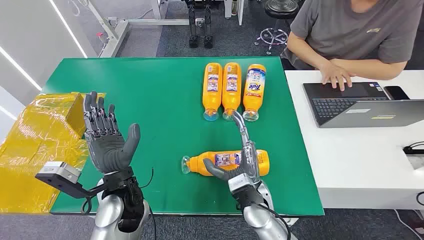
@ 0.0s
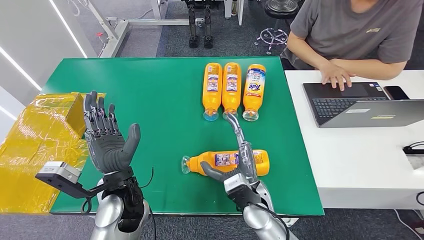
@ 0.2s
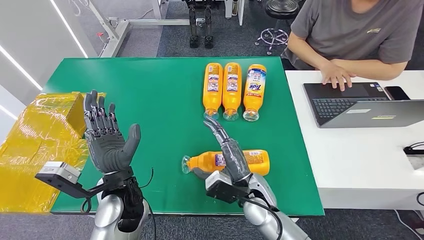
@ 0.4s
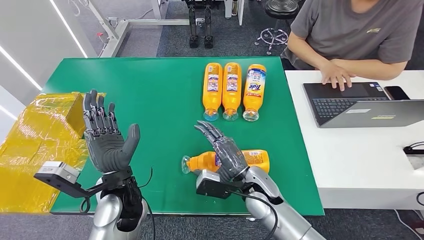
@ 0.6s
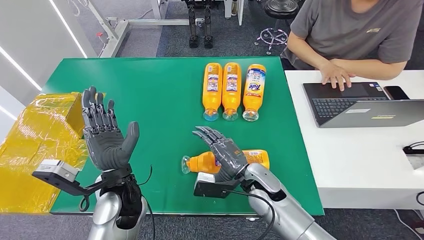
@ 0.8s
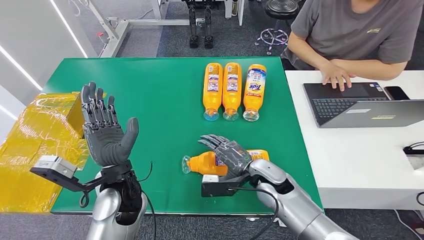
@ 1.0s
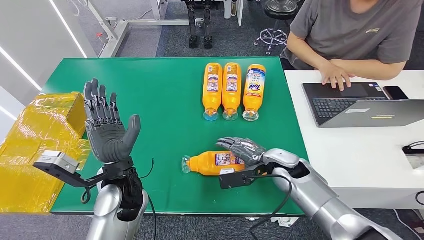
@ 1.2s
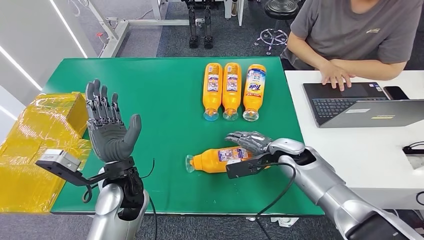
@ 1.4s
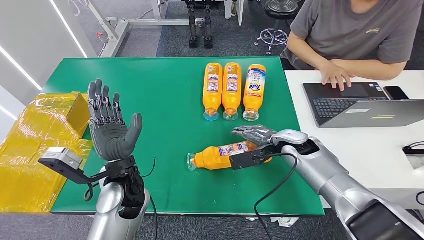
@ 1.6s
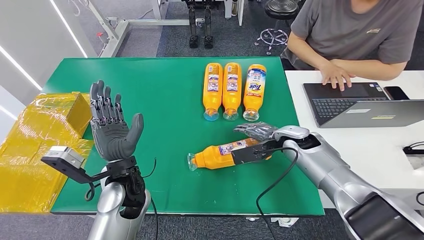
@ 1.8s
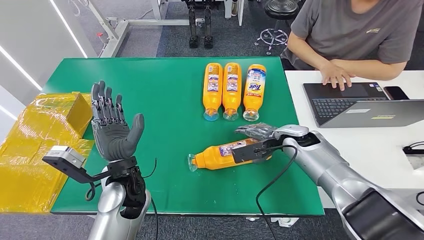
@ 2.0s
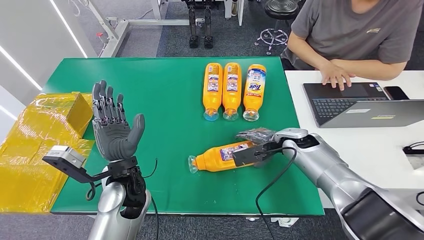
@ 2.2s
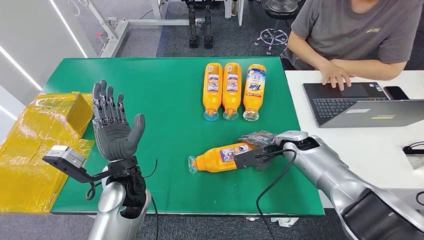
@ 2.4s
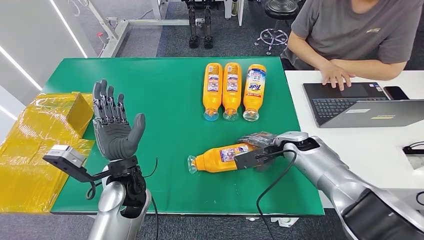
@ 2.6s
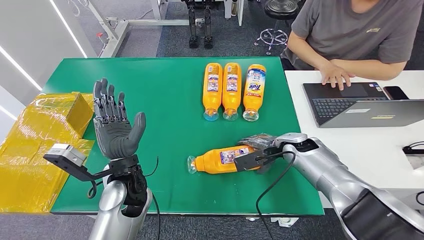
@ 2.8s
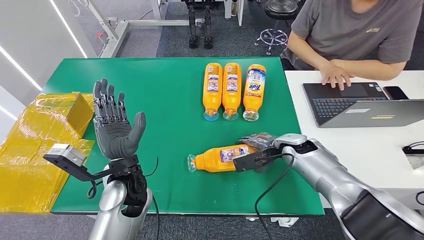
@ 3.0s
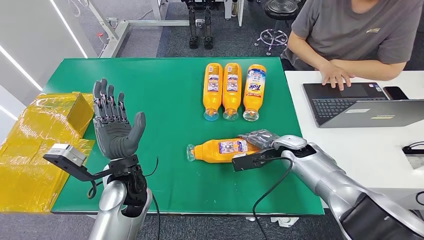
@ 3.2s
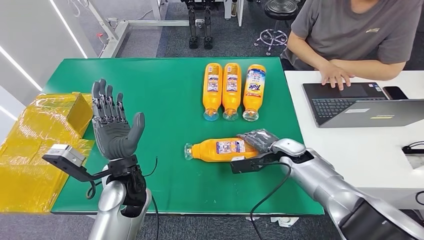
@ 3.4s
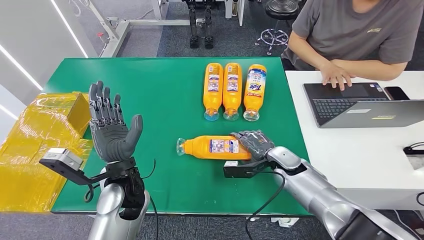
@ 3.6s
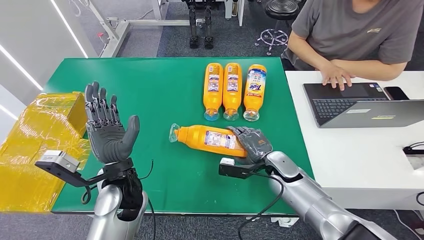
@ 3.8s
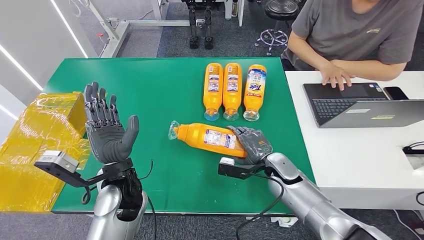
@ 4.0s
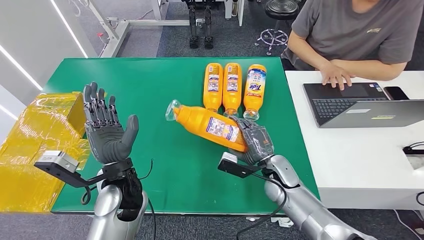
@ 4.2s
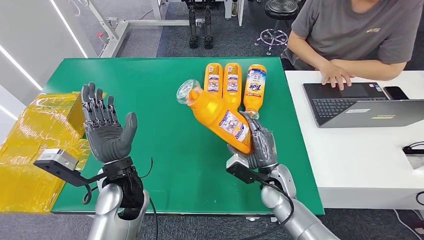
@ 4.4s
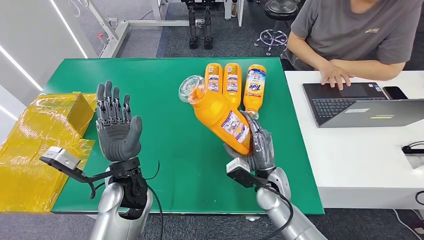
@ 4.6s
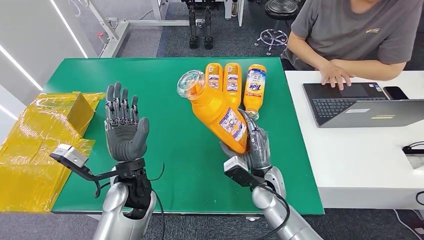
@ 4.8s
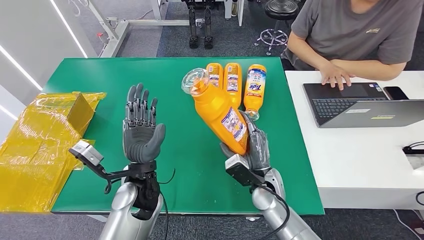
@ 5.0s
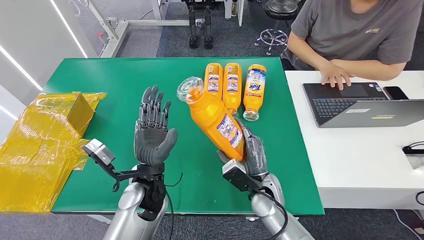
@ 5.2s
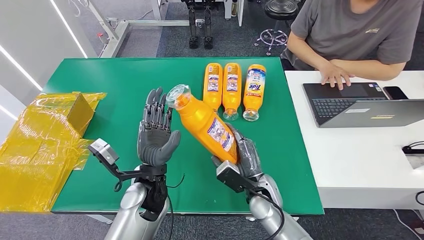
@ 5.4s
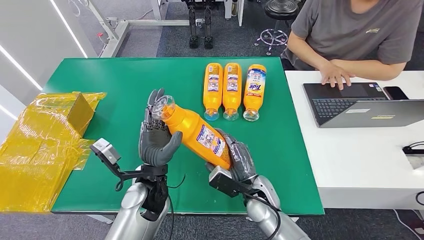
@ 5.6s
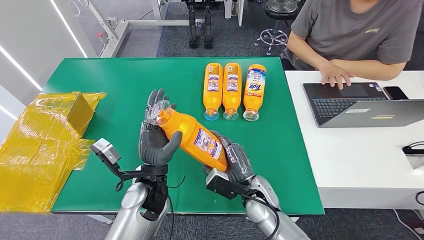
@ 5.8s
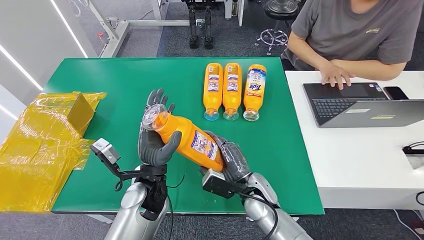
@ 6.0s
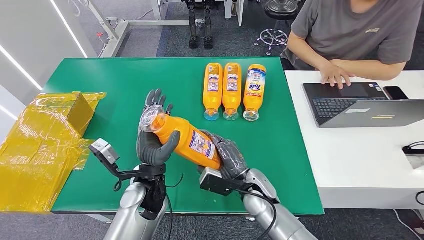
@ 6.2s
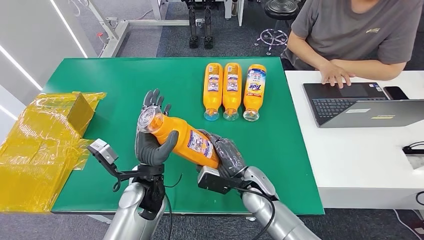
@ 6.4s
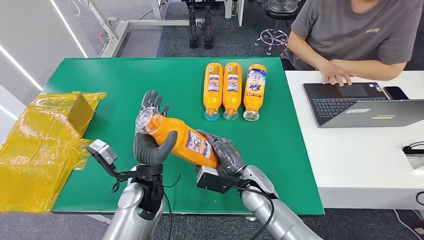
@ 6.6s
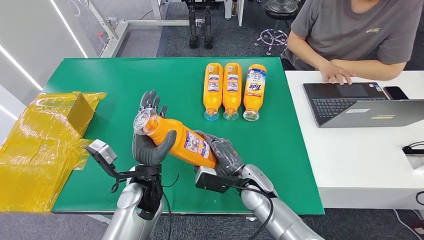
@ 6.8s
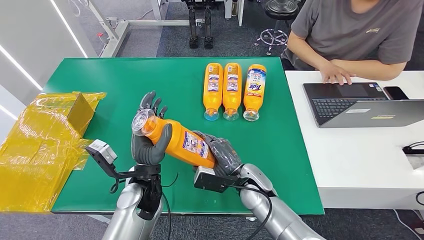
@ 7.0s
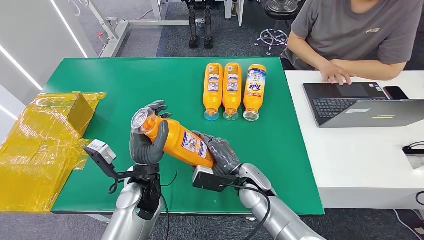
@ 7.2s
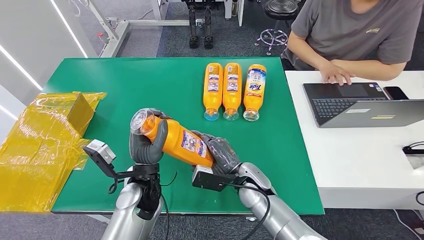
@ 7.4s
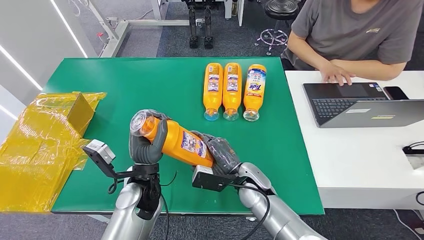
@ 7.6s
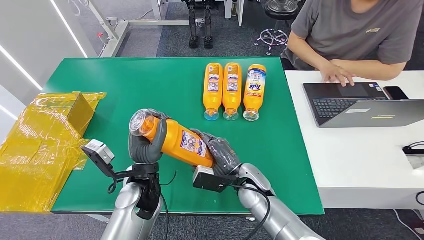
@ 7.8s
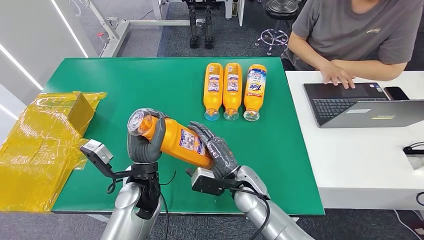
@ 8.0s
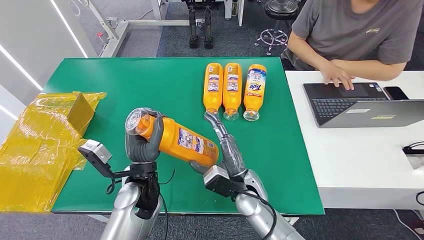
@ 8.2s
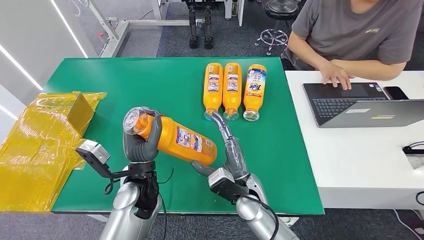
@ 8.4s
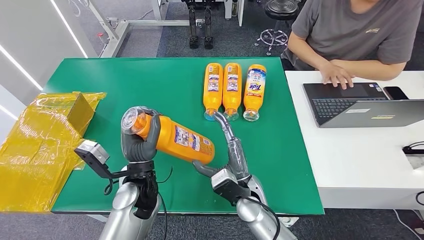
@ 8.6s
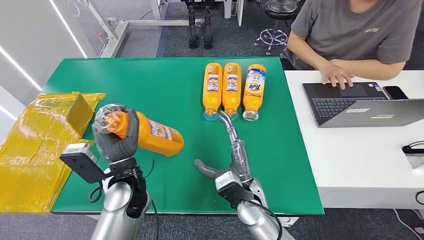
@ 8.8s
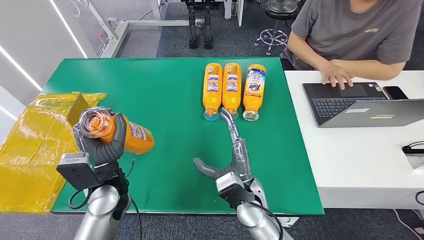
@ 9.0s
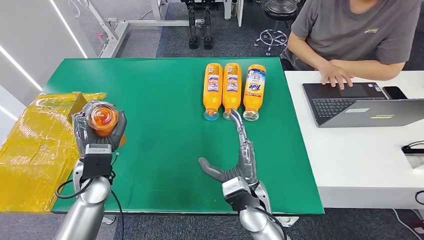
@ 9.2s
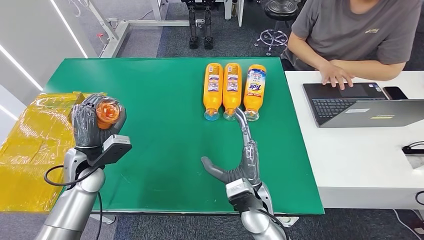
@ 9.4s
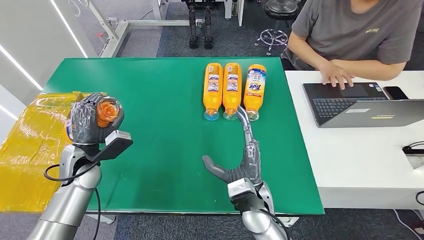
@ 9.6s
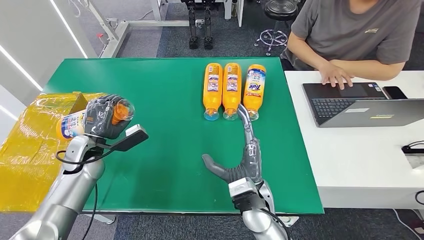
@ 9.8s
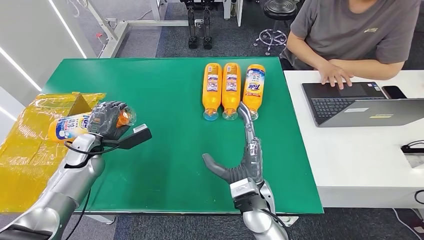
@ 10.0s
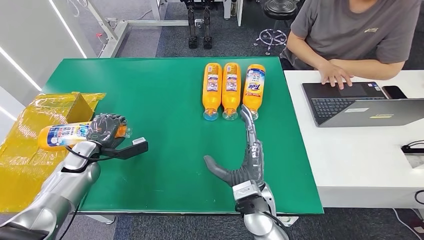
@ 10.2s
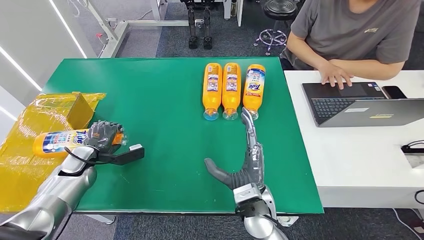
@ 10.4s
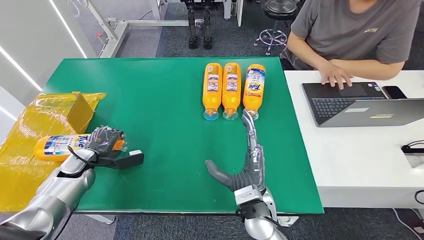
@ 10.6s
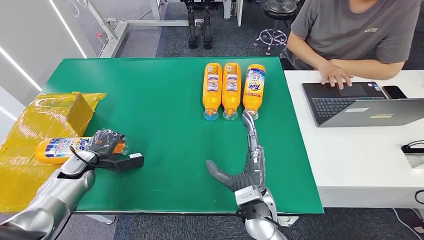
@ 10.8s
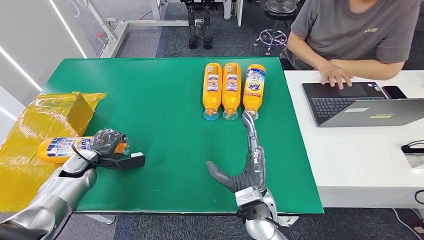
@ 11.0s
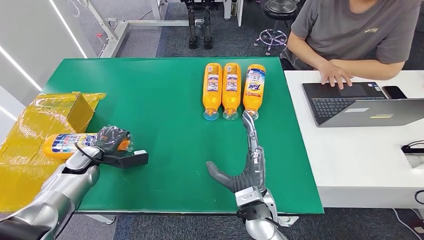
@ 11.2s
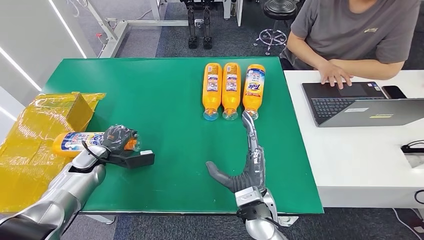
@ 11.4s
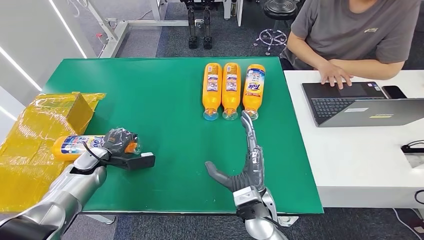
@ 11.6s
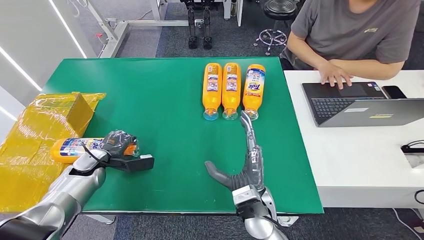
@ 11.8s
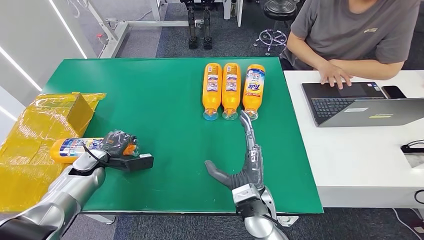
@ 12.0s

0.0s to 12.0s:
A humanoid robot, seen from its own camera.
Step, 0.0s to 5.0s: Pick up the bottle from the table.
1.6s to 3.0s: The hands stay close to where they were, moving slightly.
3.0s to 4.4s: The right hand shifts approximately 15 cm backward and to the left.
4.4s to 6.0s: The right hand goes some 5 cm to the left, while the left hand ends up roughly 5 cm from where it was.
6.0s to 7.6s: The hands stay close to where they were, moving slightly.
7.6s to 9.0s: The right hand shifts about 5 cm backward; the left hand shifts approximately 10 cm to the left.
9.0s to 10.4s: The left hand heads to the left, forward and downward, covering roughly 20 cm.
10.4s to 12.0s: There are only small adjustments of the hands.

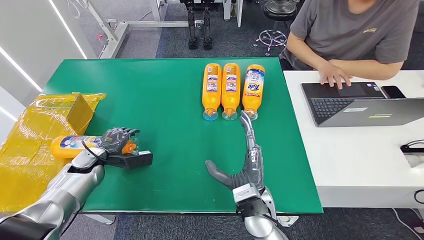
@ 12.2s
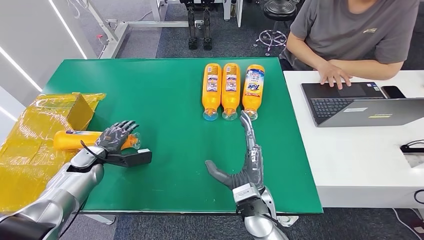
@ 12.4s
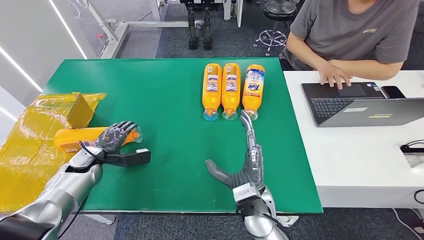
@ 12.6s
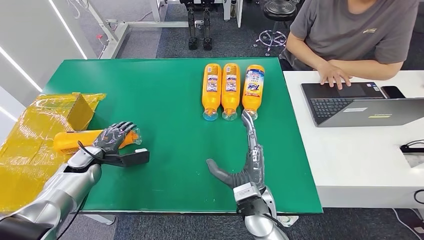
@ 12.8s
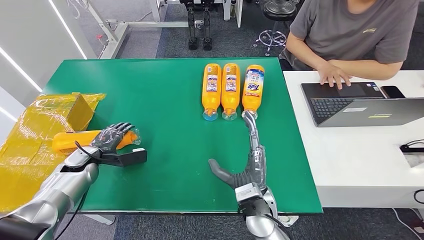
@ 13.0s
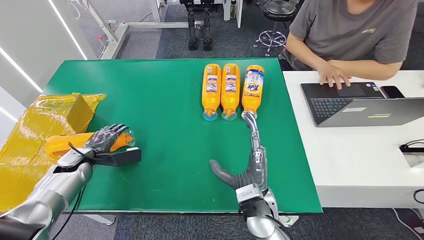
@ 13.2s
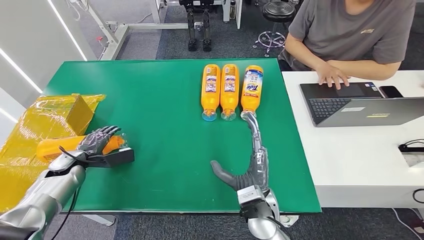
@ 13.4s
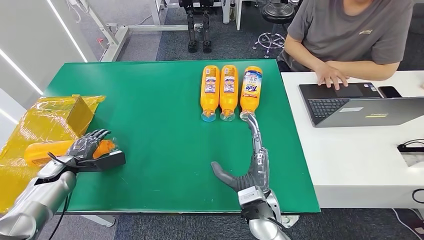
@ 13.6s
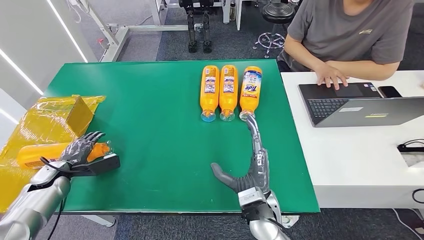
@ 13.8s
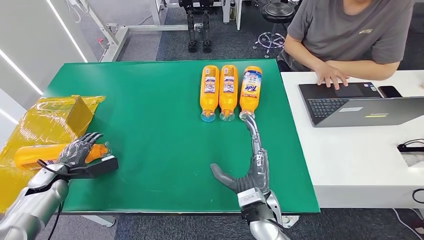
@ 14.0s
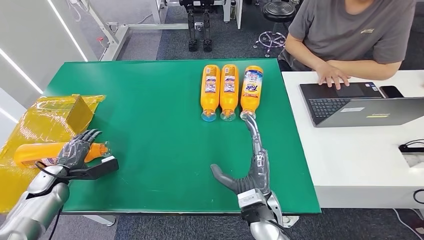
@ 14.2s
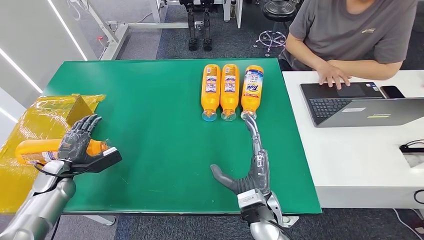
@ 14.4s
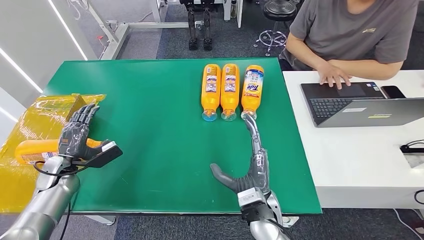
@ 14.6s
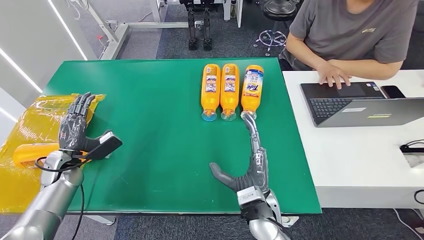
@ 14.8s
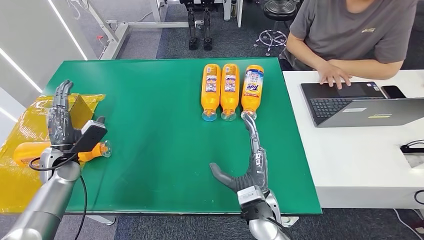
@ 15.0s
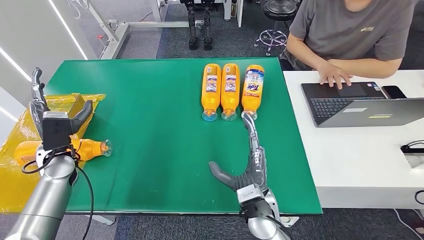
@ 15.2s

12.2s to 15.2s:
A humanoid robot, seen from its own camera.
Step, 12.2s to 15.2s: Turn the bottle to the front side.
13.8s to 15.2s: The left hand heads upward and to the right, covering approximately 15 cm.
